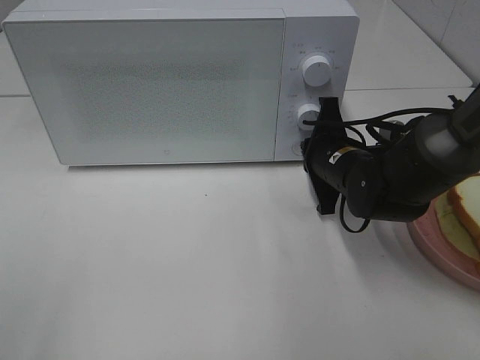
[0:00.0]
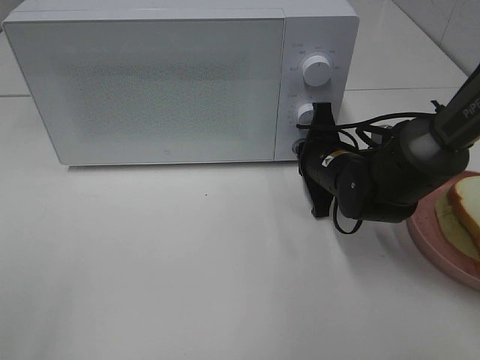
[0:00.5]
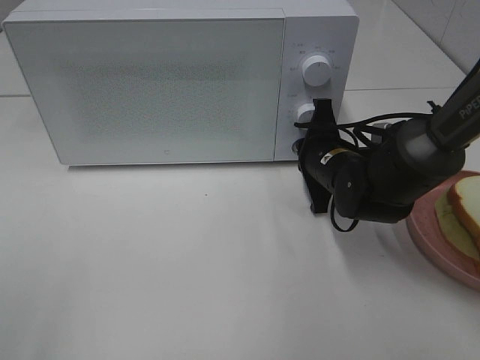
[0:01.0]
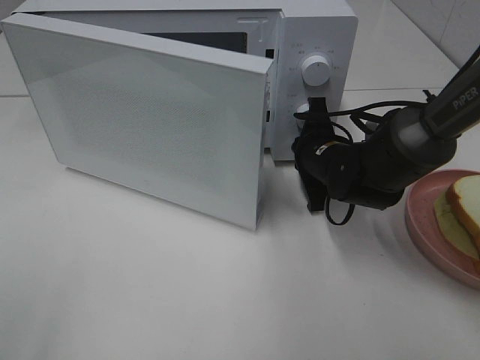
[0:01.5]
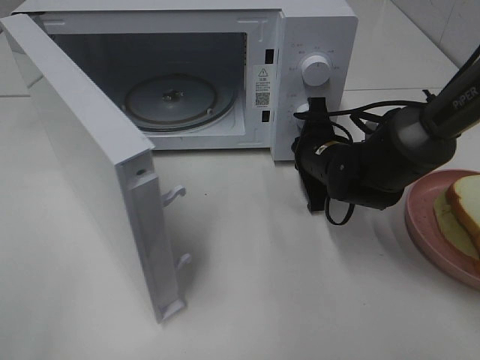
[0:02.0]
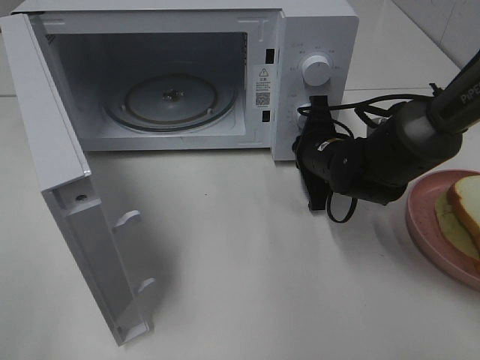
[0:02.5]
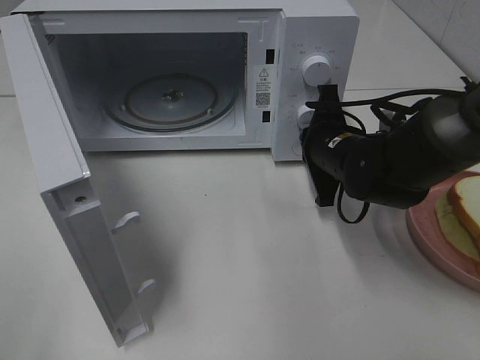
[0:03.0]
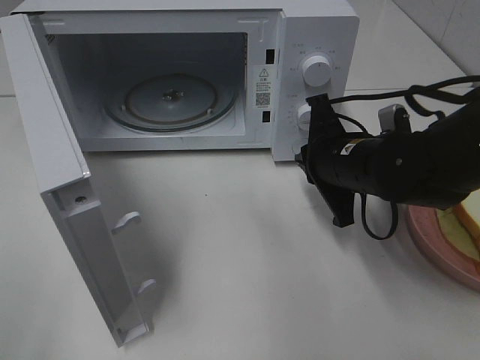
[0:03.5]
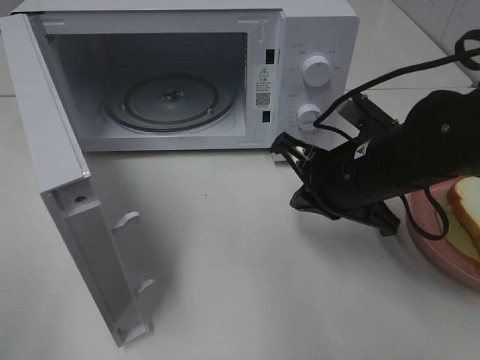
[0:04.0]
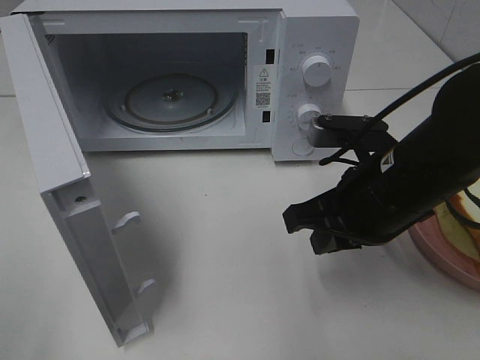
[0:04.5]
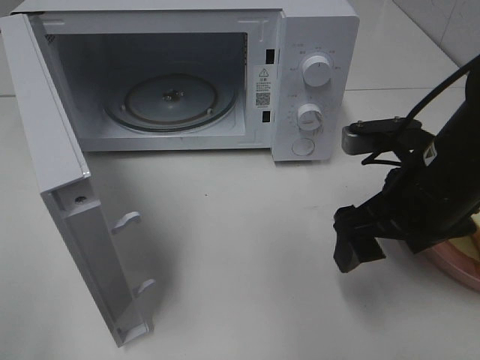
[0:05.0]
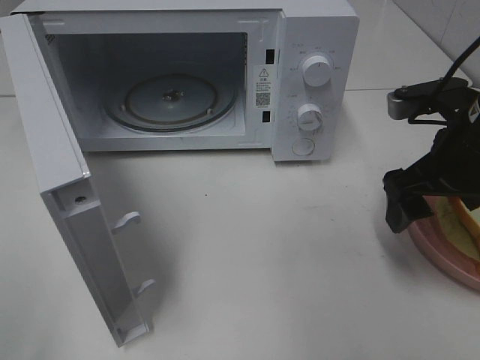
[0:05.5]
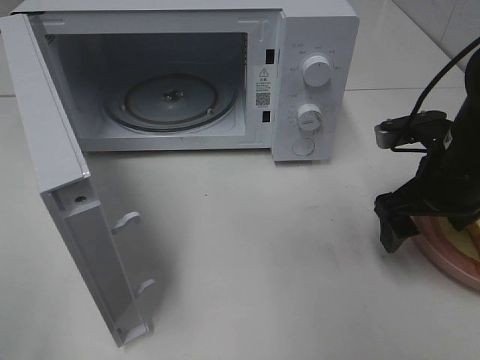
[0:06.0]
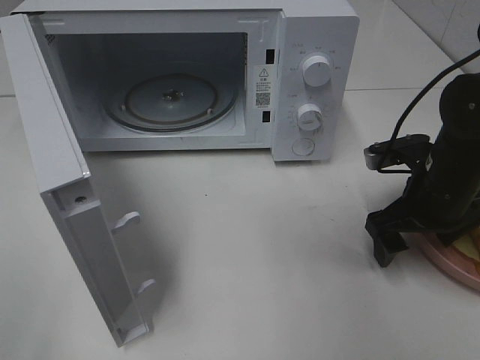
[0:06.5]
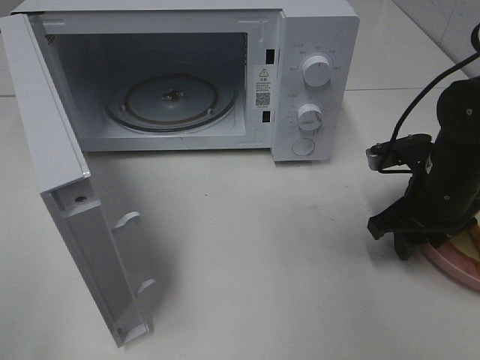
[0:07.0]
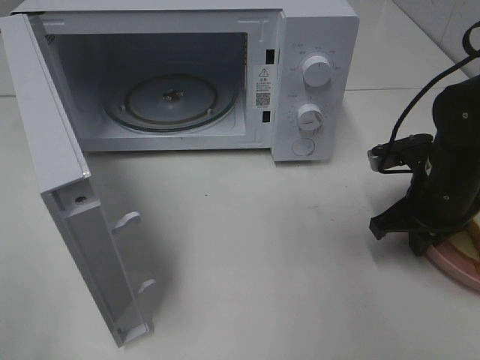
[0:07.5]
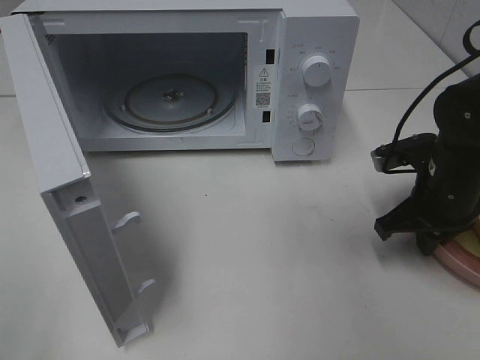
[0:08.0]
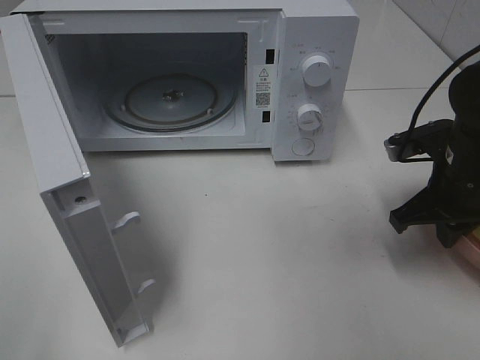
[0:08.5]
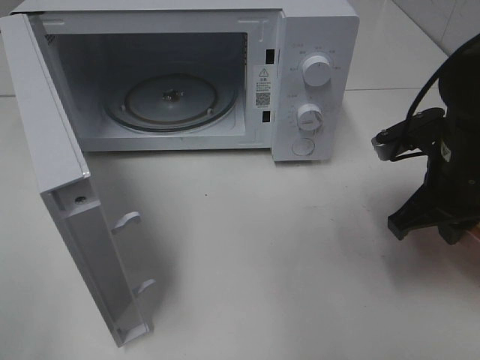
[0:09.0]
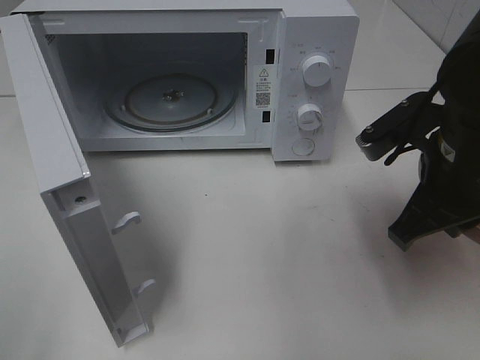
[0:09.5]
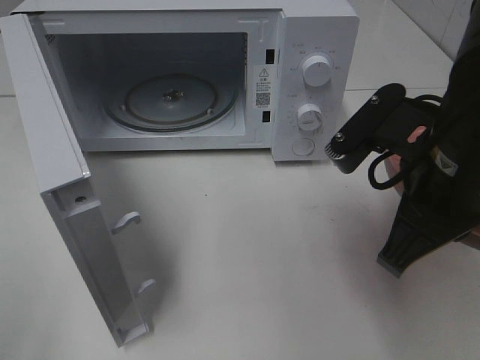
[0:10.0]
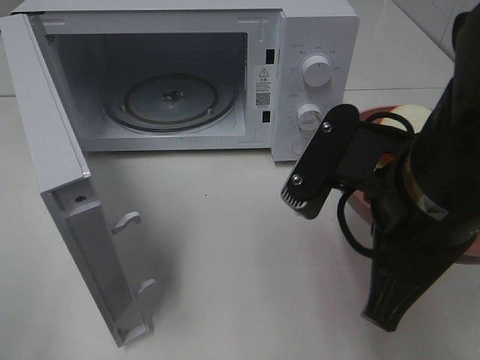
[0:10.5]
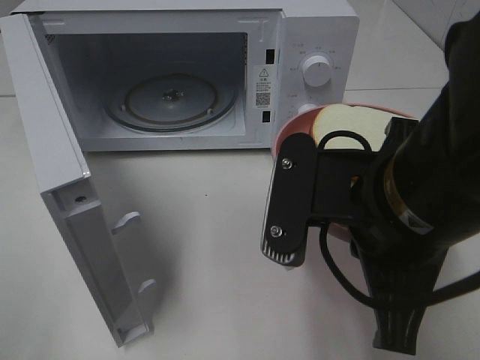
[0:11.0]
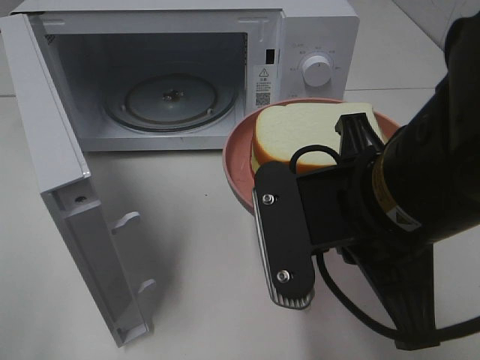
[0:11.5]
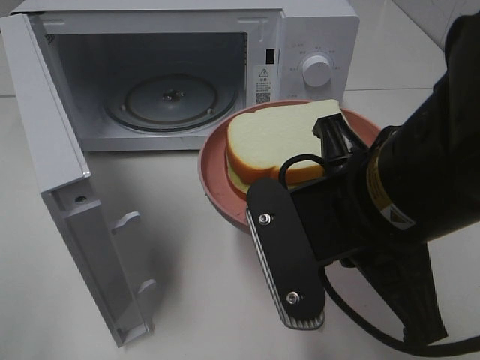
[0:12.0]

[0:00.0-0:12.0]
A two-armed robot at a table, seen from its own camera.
Task of the whole recording: Heat Sandwich.
Step, 0.0 to 2.5 s: Right hand: press the switch.
Step, 3.0 to 7.5 s: Right hand: grab the plate with the sandwich.
2.0 to 4.0 s: The right gripper heads backward and upward, covering some 15 cm.
4.0 to 6.0 s: The right gripper goes about 10 cm to the right, and opens its fingers.
6.0 to 8.0 s: The right gripper closes its fingers.
8.0 to 10.0 s: The right gripper goes some 20 cm upward, backward and to the left.
10.0 to 12.0 s: The right gripper travels to the left by some 5 cm.

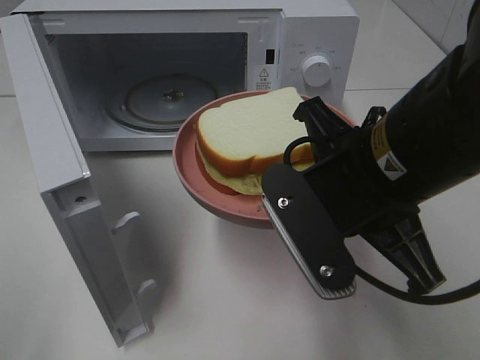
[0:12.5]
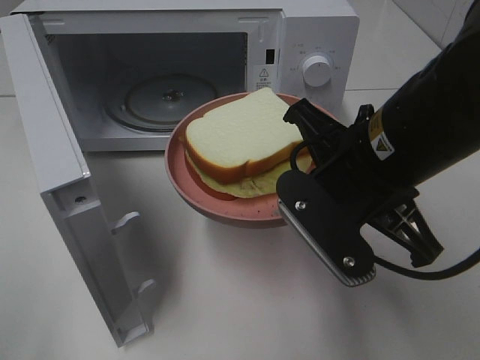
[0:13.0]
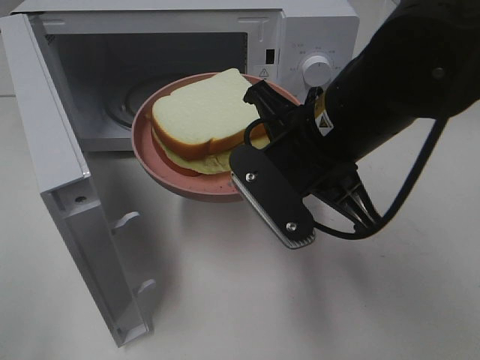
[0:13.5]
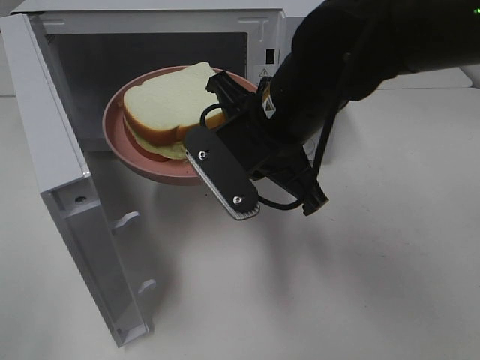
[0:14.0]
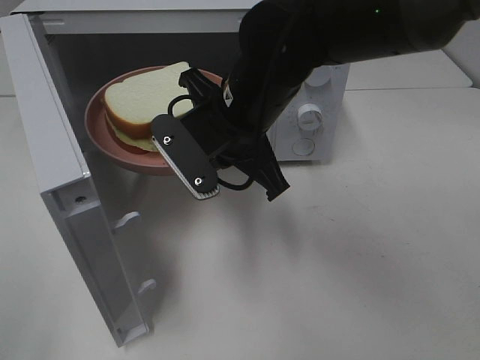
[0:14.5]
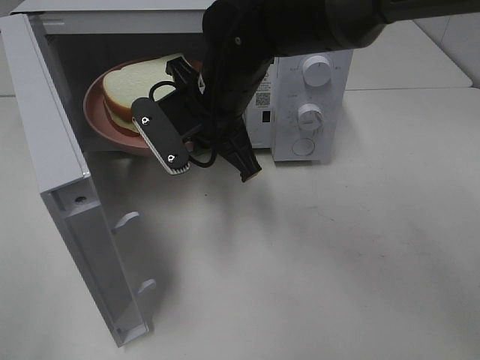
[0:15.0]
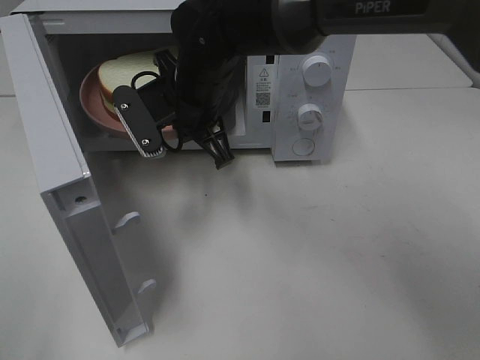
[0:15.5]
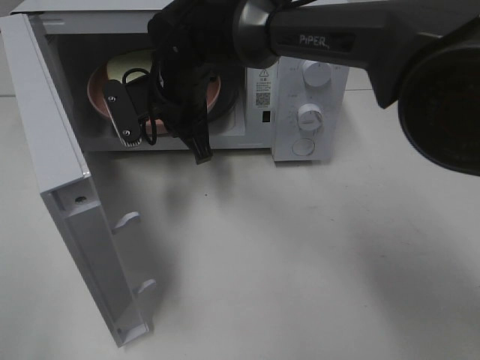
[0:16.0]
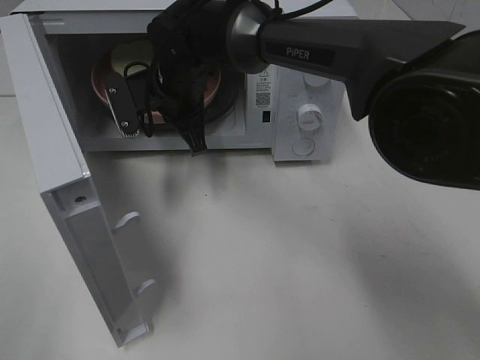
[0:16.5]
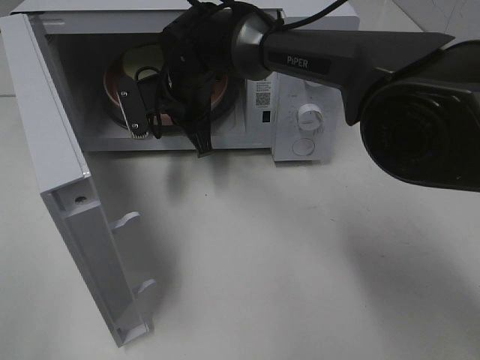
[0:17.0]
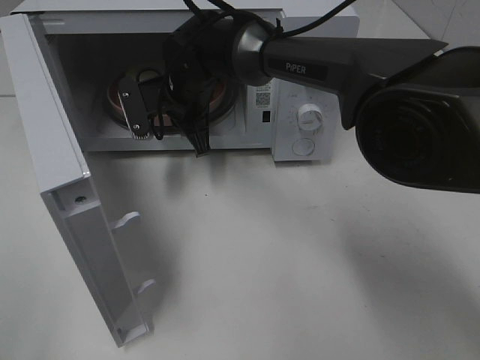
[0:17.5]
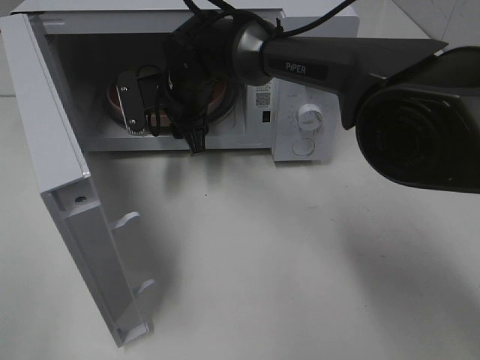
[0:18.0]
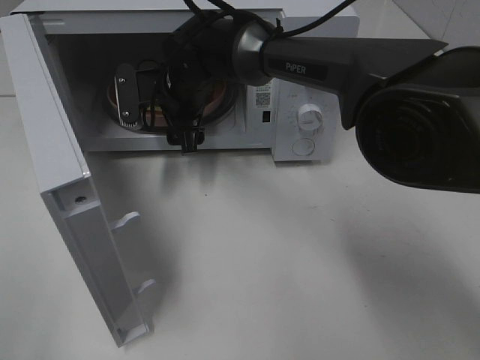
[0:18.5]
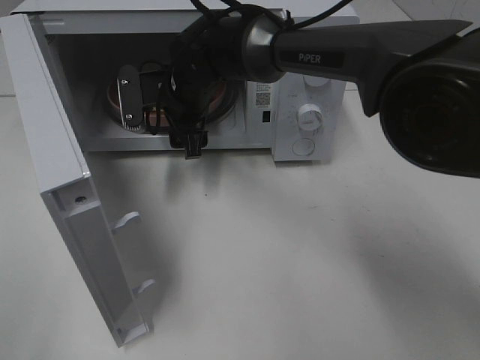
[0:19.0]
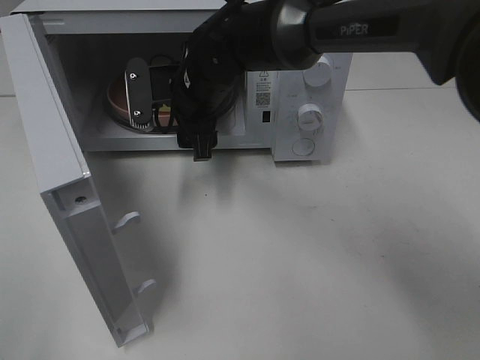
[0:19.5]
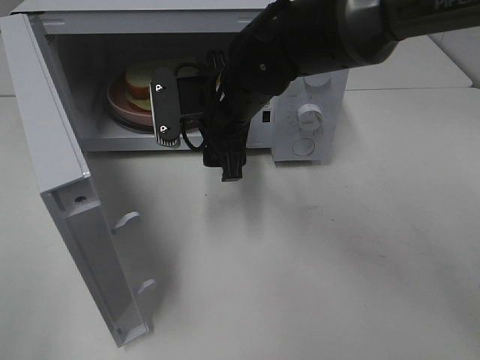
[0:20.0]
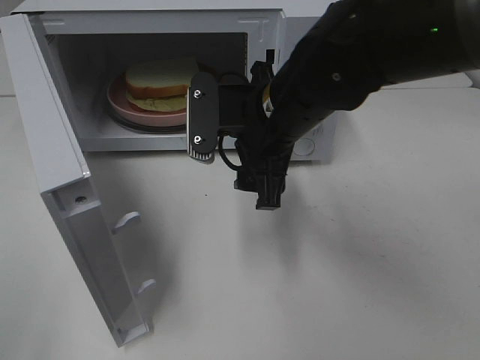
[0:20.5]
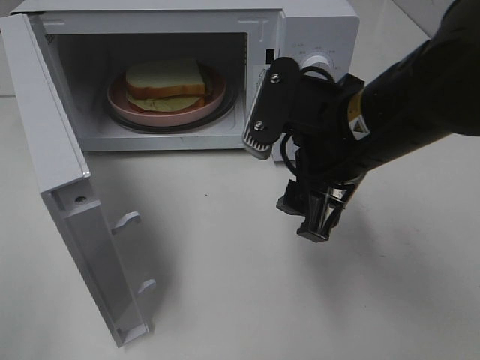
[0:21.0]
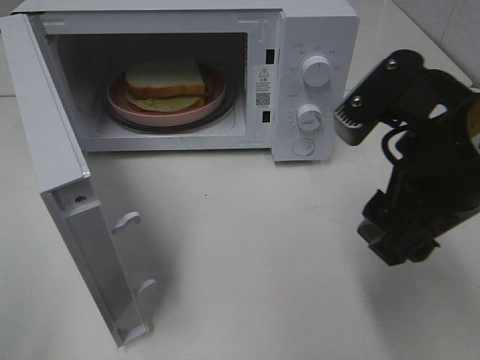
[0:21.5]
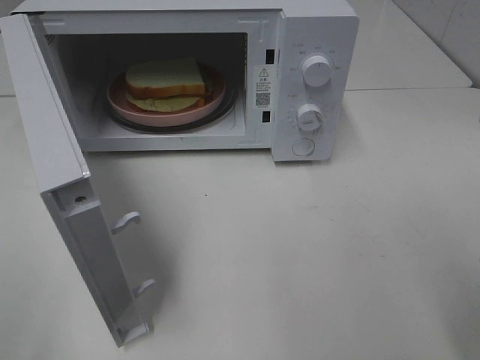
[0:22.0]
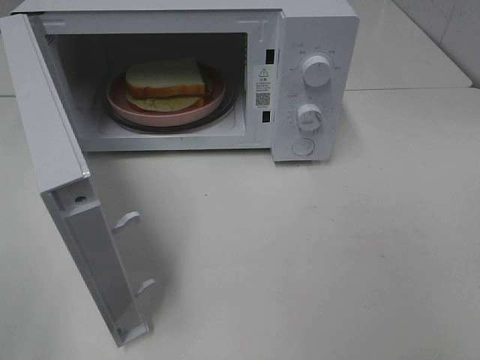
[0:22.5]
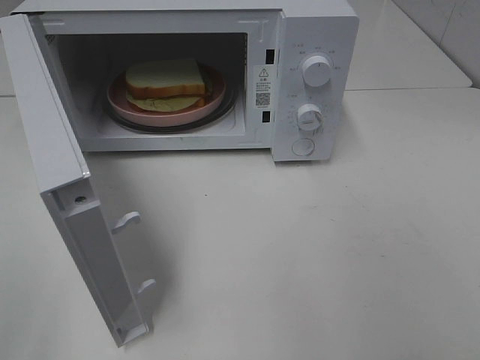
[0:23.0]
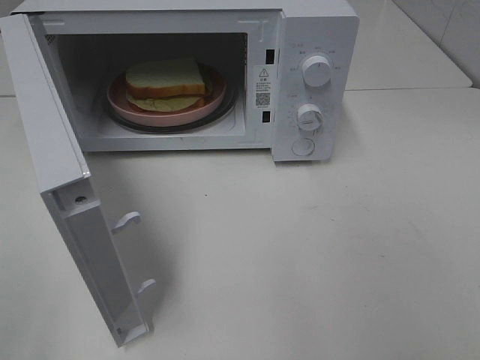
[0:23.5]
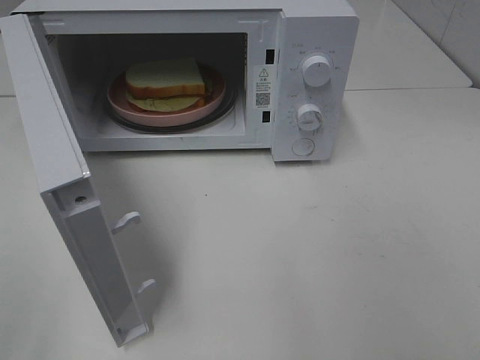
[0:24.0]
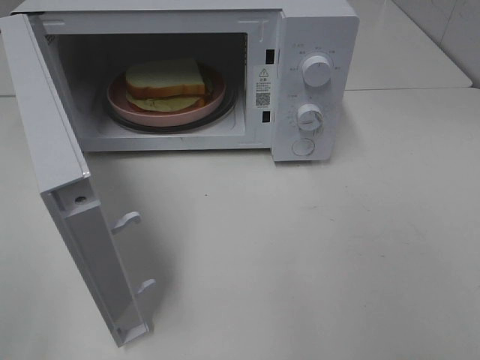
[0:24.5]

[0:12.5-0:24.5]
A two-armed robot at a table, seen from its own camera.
Task of the whole recording: Heat Sandwich.
Step, 12.5 to 19.5 s: Right hand: place the plate in the microwave.
12.5 to 14.5 s: The right gripper travels forward and to the left by roughly 15 cm.
14.5 to 16.5 s: The right gripper heads forward and to the left, covering about 15 cm.
16.5 to 18.5 s: The right gripper opens.
18.5 to 20.5 s: The right gripper is displaced backward and to the right by some 20 cm.
20.5 to 22.5 s: The right gripper travels backward, to the right and upward by approximately 35 cm.

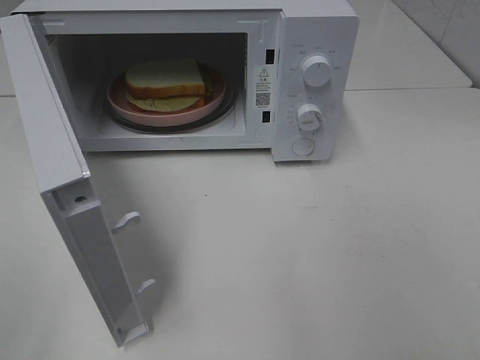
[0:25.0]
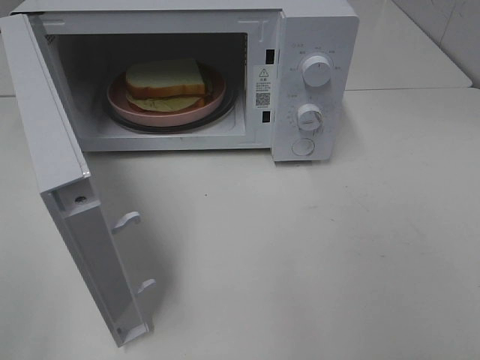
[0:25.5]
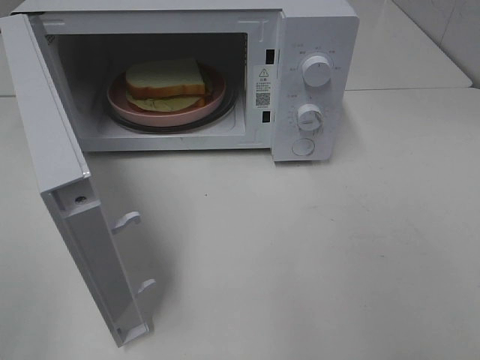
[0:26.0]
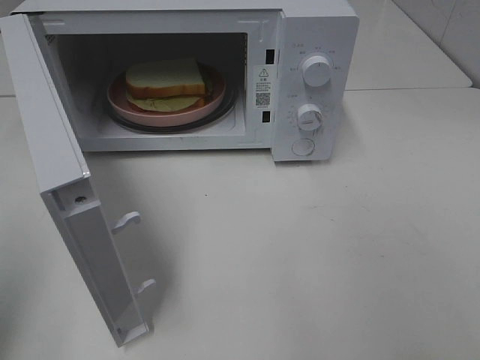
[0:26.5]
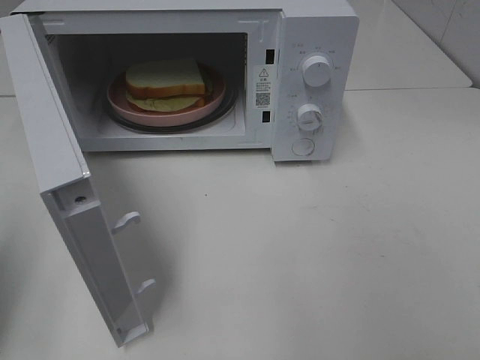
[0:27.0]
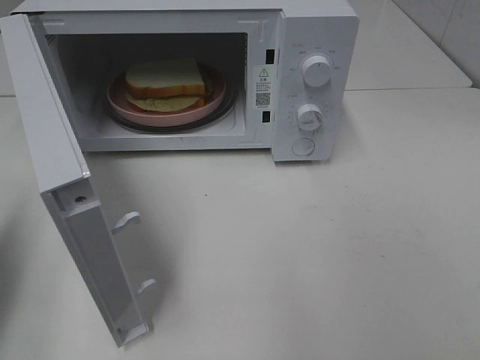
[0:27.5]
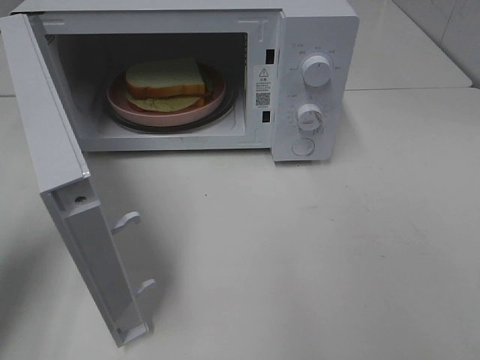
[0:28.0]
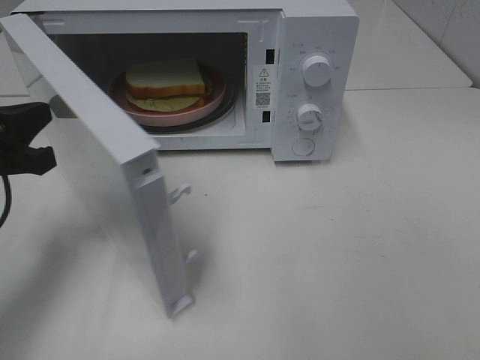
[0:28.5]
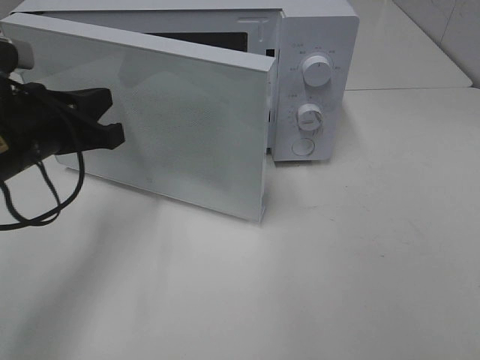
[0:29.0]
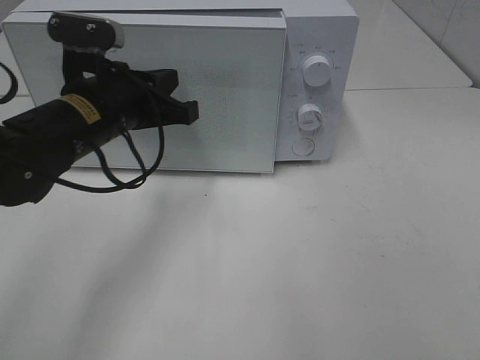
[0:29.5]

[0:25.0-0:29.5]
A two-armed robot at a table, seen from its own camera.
Task of the whole recording: Heat Sandwich.
25.0 to 27.0 s: The left gripper travels forward by some 15 cm, and closes.
27.0 to 29.5 s: The left gripper travels to the right and forward by roughly 25 cm.
